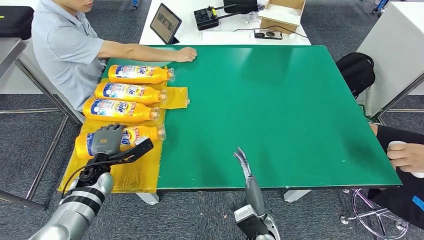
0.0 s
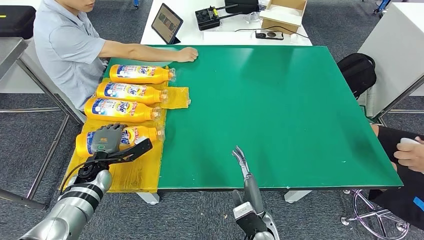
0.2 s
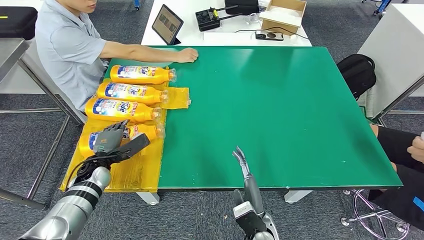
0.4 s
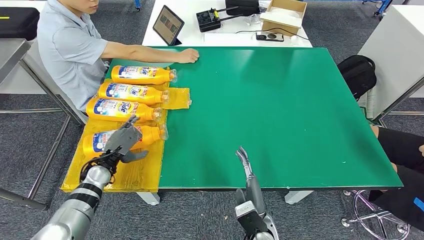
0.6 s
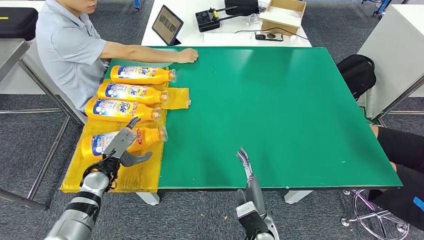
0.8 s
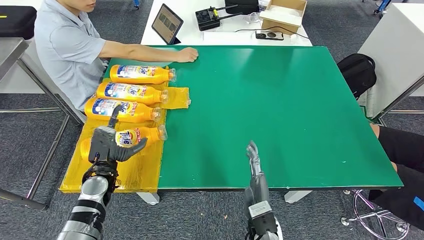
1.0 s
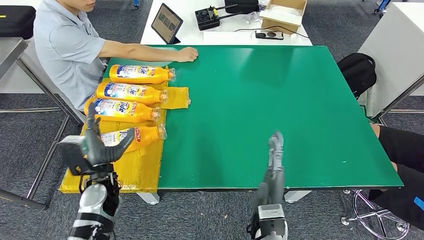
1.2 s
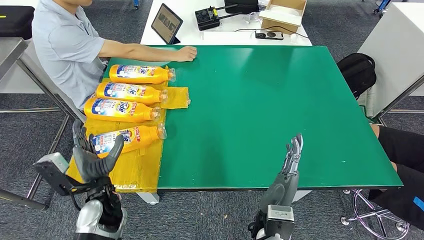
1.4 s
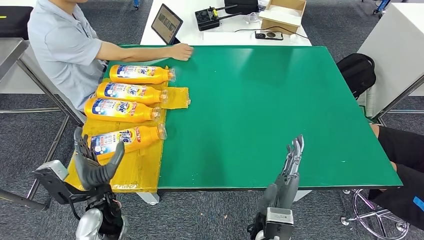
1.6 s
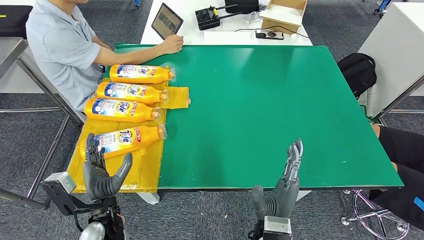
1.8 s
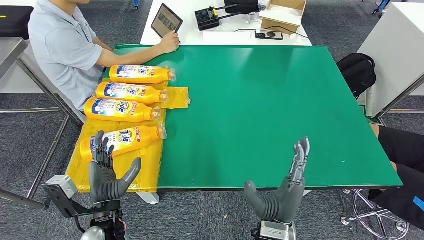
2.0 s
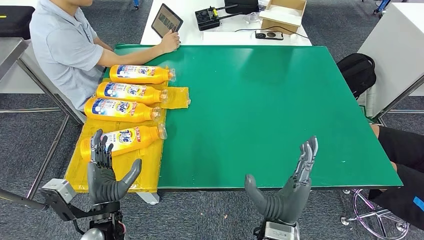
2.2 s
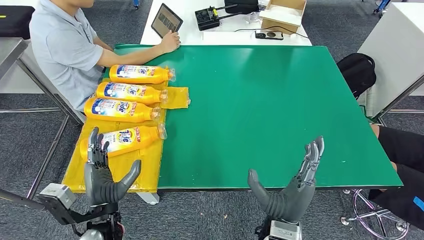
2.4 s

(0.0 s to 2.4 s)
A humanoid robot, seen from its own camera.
Step, 0.0 s - 2.2 s: Flip the fast-moving consumer goods bottle to the front side.
0.0 s - 1.2 s: The left hand is displaced backward and to the right by about 10 cm. Meanwhile the right hand goes roughly 5 cm upward.
1.2 s - 2.4 s: The left hand moves backward, some 10 cm.

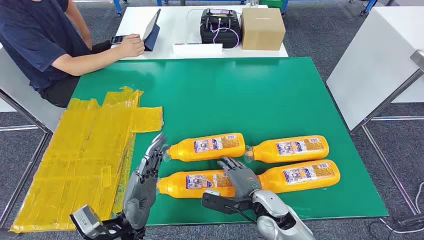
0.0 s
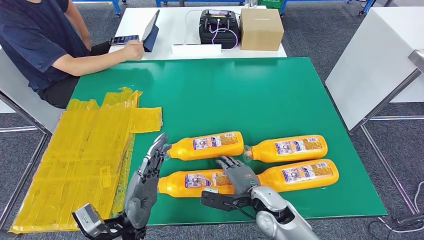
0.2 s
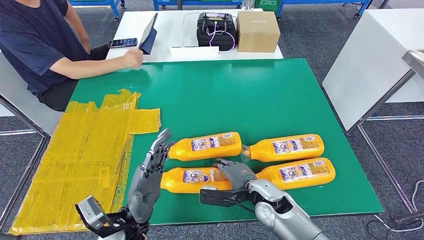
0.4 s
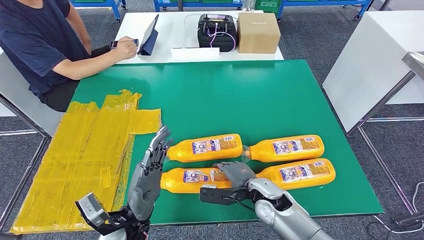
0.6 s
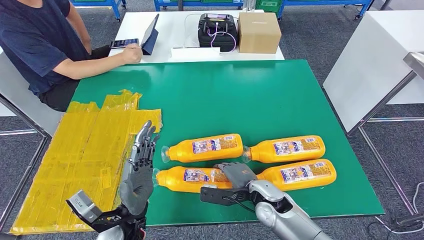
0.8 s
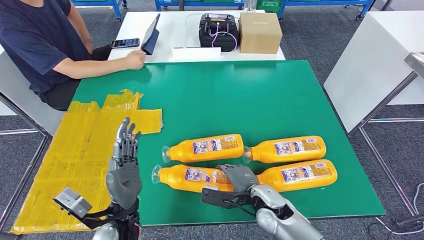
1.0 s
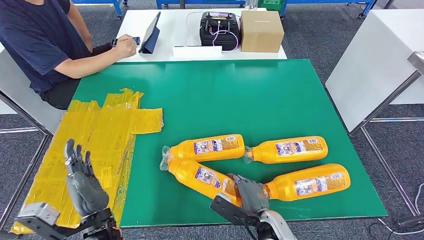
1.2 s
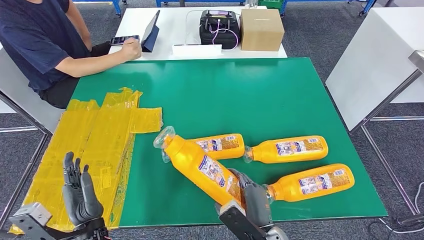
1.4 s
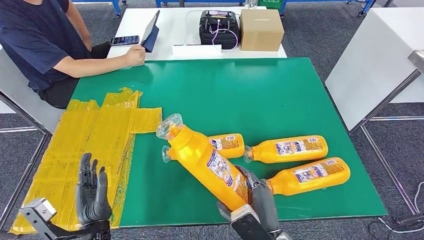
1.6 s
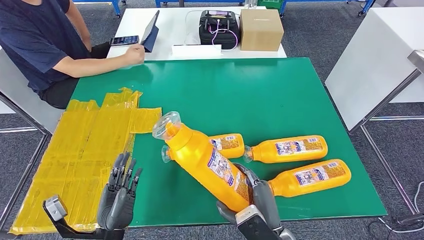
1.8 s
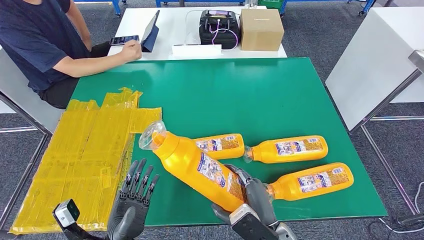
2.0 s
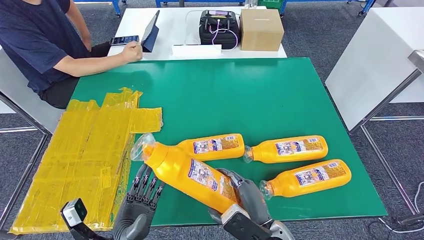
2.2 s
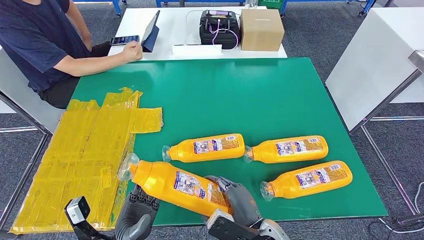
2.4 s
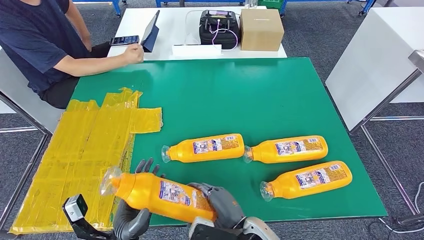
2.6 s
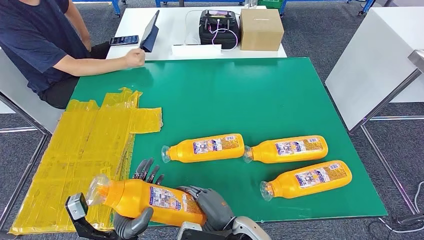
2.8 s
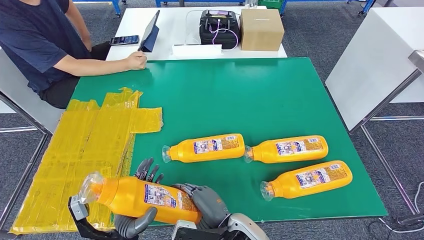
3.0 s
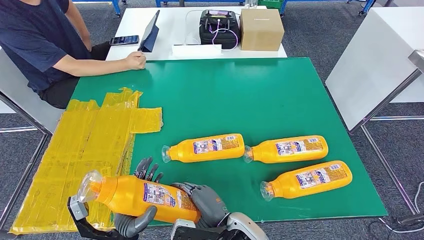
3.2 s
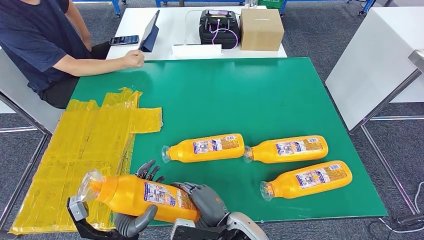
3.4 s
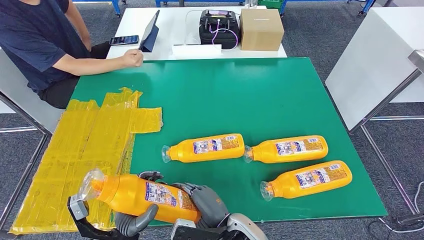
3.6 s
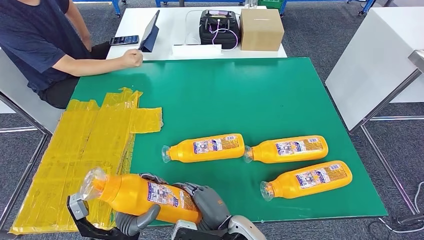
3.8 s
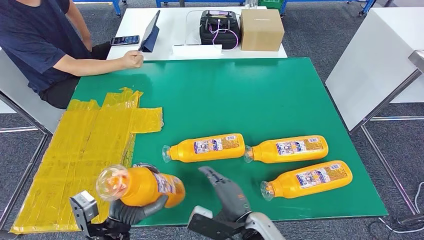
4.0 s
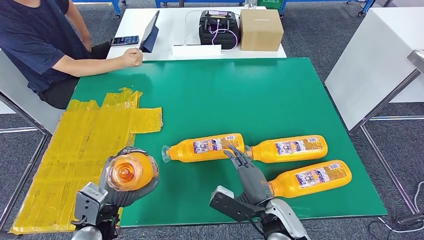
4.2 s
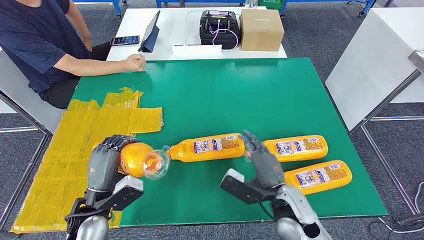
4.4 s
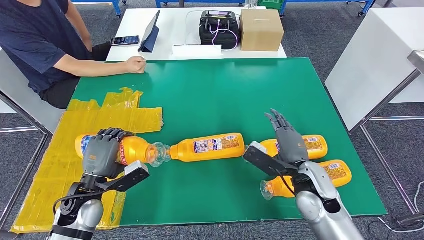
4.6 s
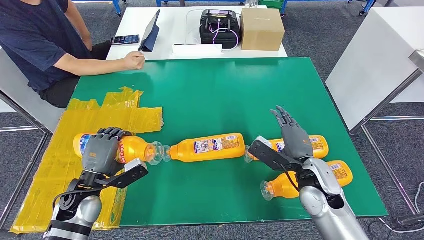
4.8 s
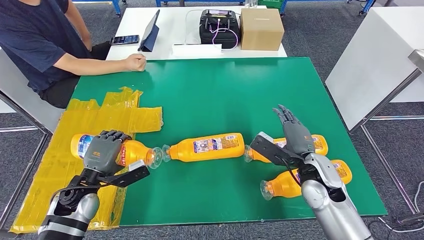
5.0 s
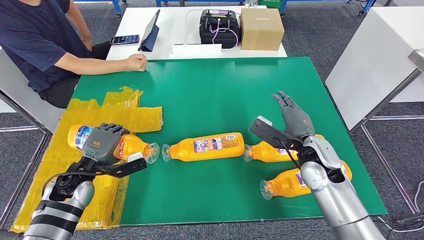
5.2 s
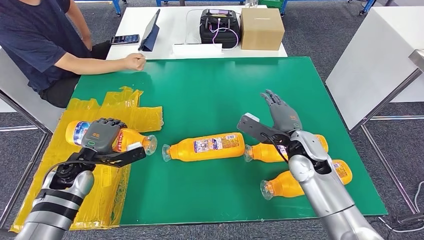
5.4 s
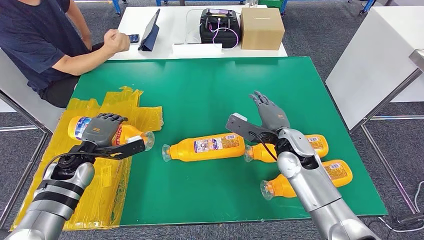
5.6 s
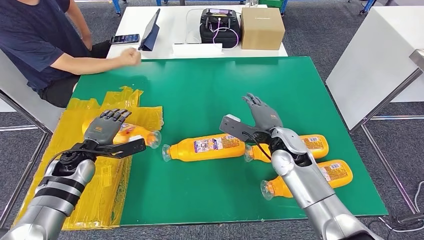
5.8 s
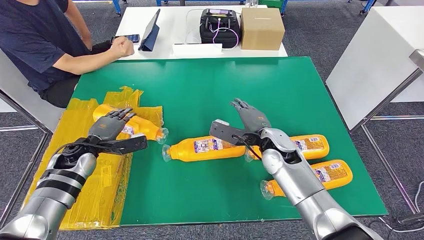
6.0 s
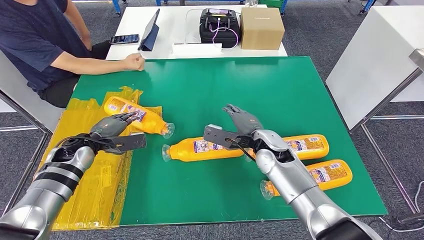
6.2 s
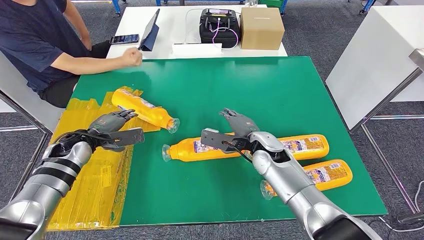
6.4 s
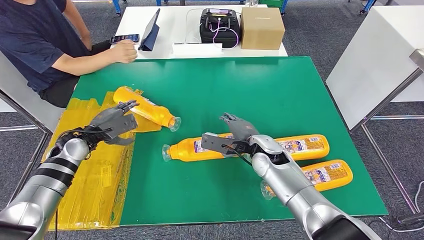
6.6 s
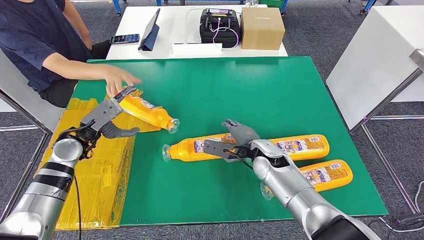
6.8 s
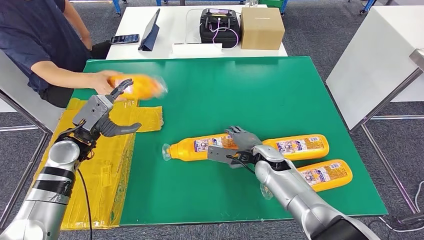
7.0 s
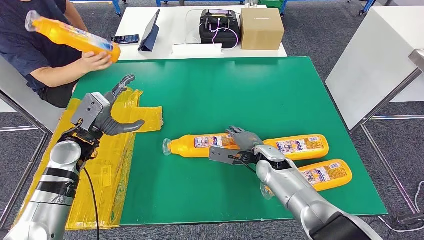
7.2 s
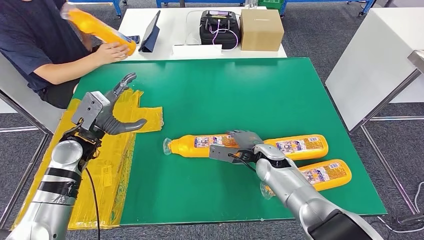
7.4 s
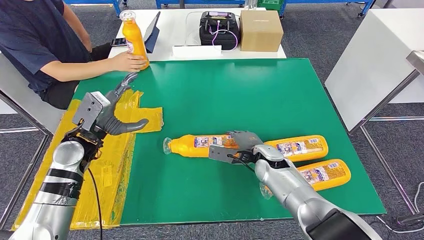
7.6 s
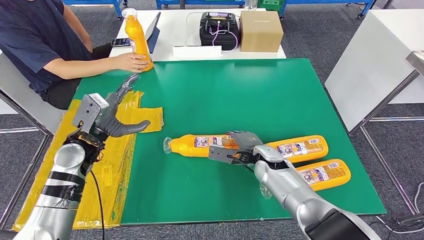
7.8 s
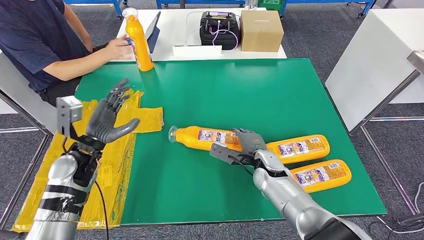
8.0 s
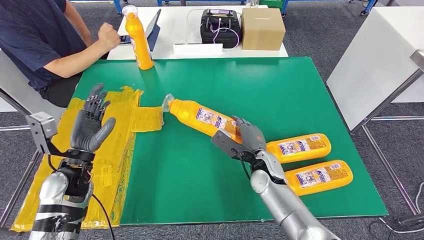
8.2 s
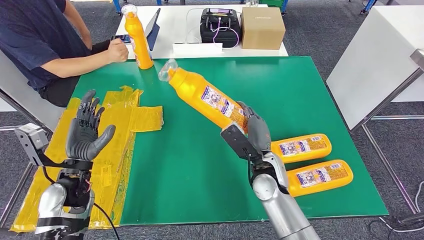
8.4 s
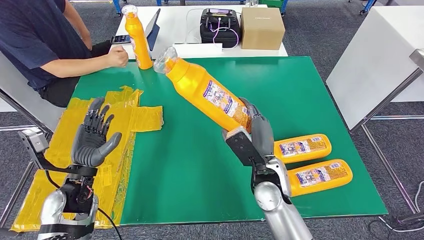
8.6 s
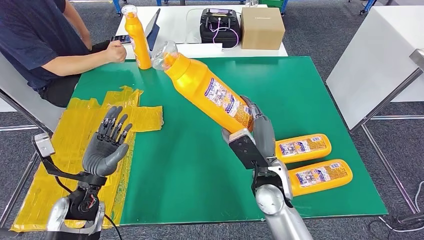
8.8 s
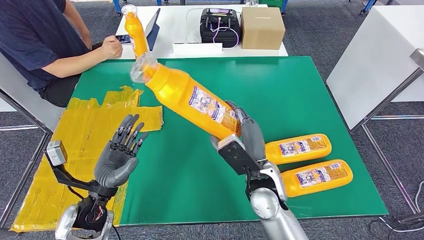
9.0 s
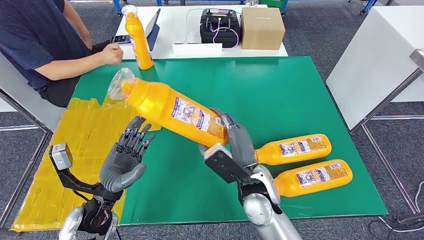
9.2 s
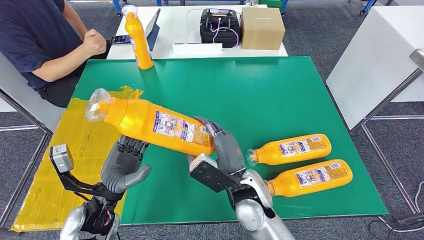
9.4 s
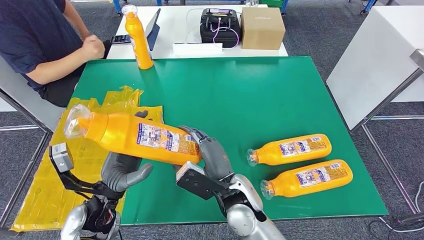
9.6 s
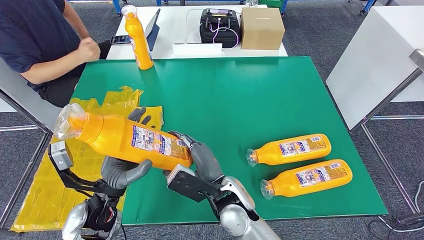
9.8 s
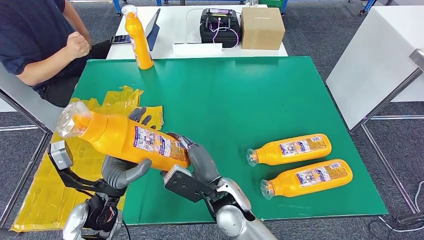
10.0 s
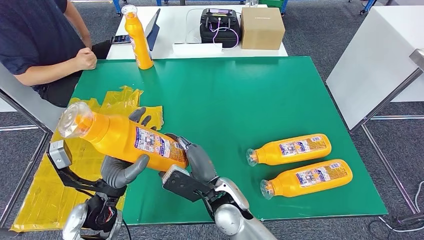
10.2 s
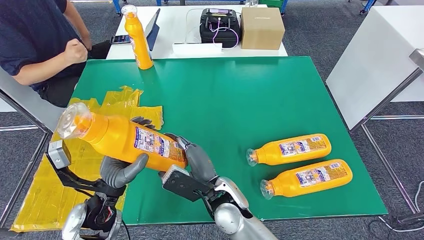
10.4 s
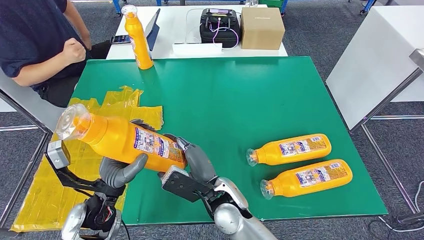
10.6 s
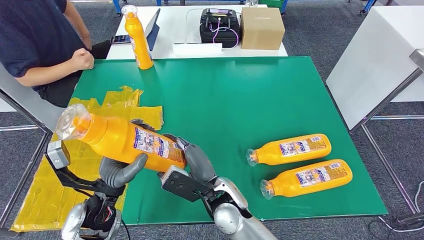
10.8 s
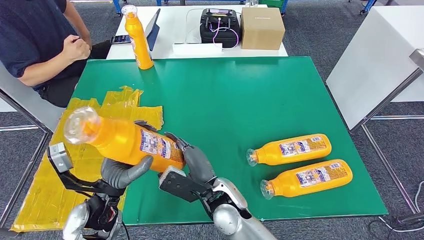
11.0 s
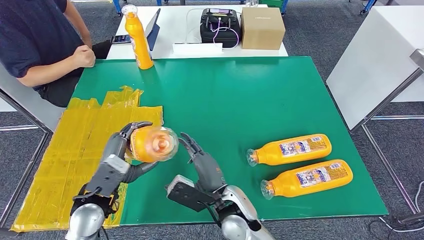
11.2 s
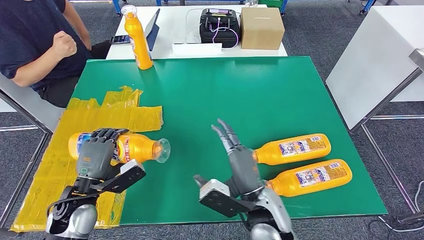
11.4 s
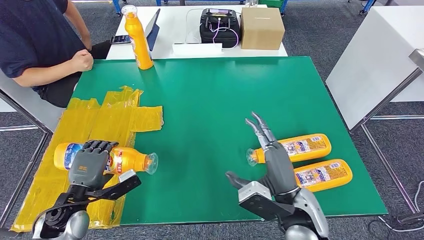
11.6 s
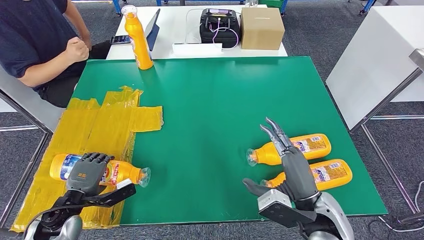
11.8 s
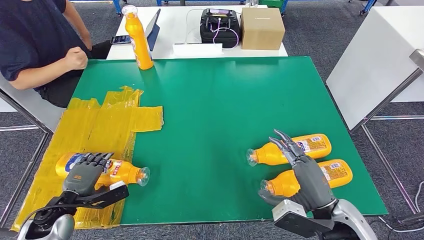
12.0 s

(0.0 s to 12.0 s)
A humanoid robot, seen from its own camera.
Step, 0.0 s - 3.8 s: Take the fast-moving consumer goods bottle from the table.
Step, 4.0 s - 8.0 s: Flip the fast-moving consumer goods bottle to the front side.
Step, 8.2 s - 11.0 s: Pick up the fast-moving consumer goods bottle from the table.
1.6 s - 3.0 s: The right hand shifts about 5 cm to the left.
3.0 s - 4.4 s: The left hand moves forward, upward and to the left, approximately 10 cm; the right hand moves to the right and forward, some 15 cm.

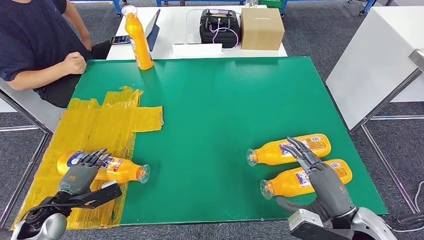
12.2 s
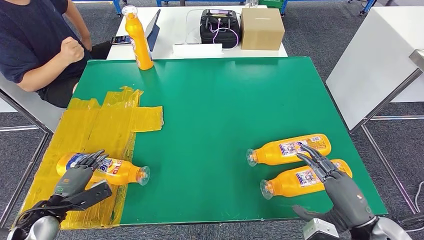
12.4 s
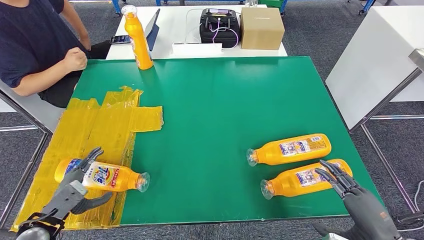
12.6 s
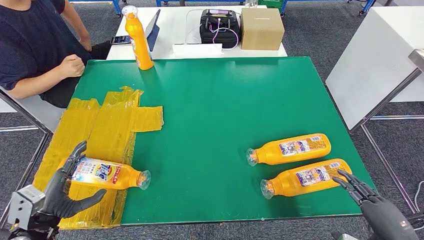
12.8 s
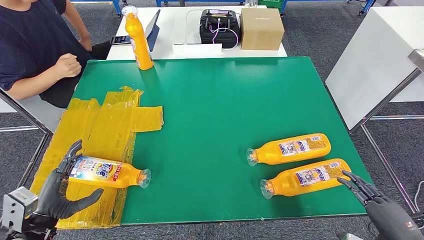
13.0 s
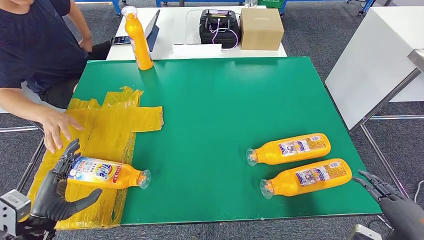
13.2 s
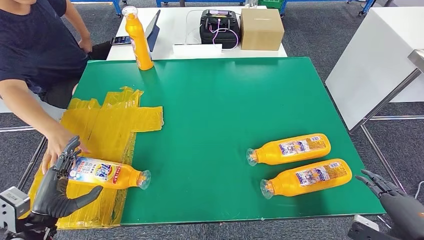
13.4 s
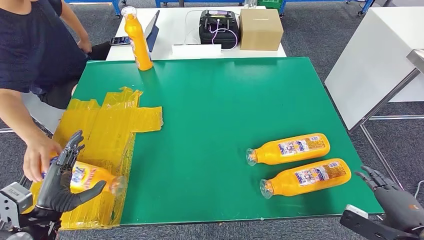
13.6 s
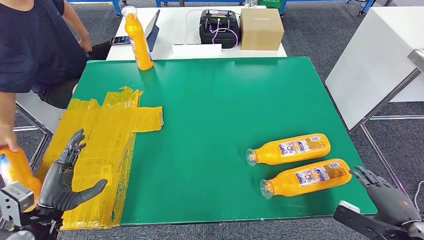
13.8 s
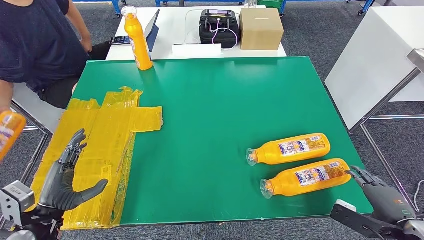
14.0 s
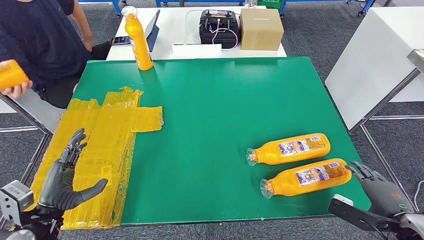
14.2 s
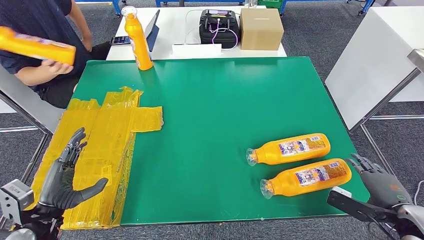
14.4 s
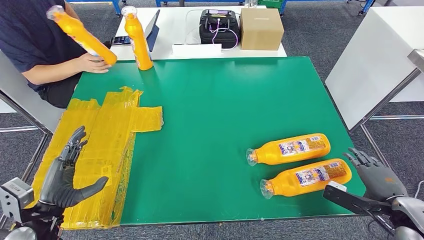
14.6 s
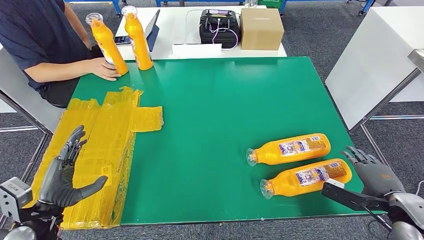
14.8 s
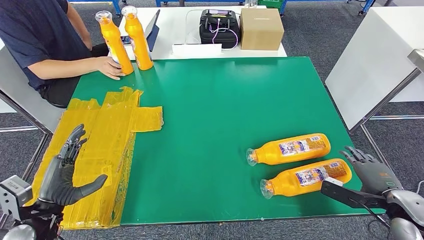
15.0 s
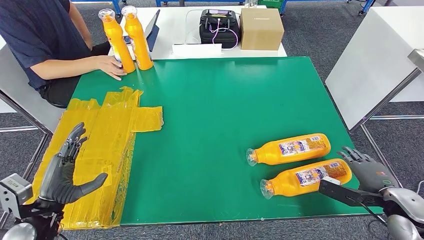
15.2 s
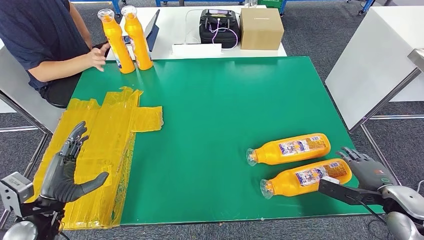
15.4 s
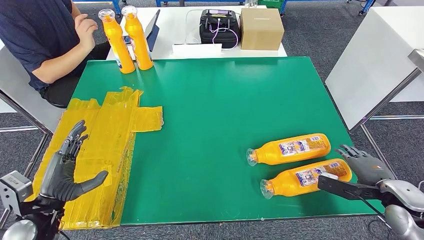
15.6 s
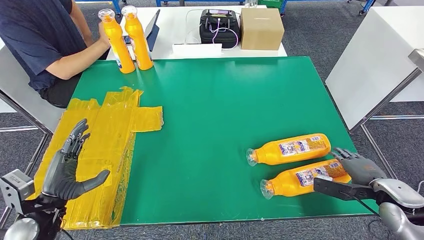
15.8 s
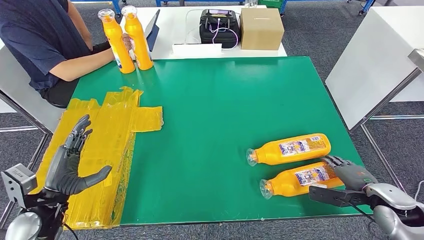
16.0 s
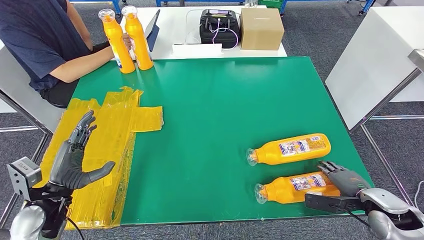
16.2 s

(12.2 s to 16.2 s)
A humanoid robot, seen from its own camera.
Step, 12.2 s - 14.6 s: Flip the fast-moving consumer goods bottle to the front side.
13.6 s - 14.8 s: The right hand shifts roughly 10 cm forward.
14.8 s - 16.2 s: The right hand is displaced downward by about 5 cm.
